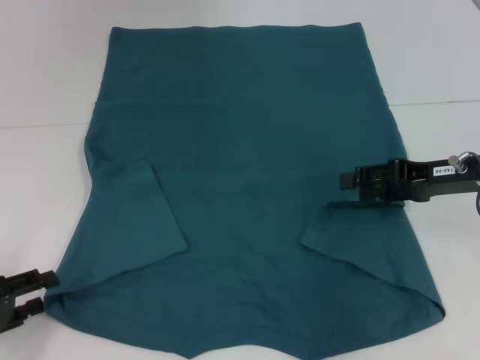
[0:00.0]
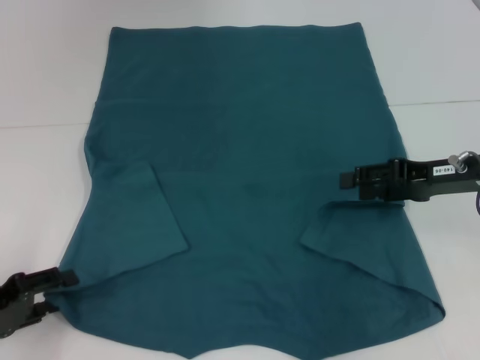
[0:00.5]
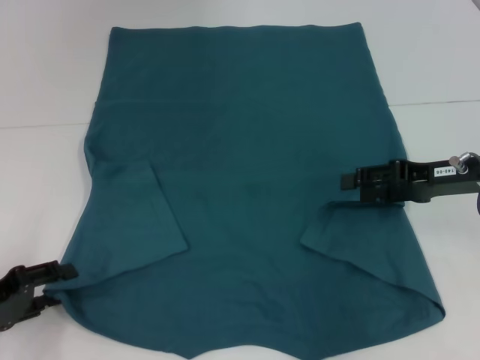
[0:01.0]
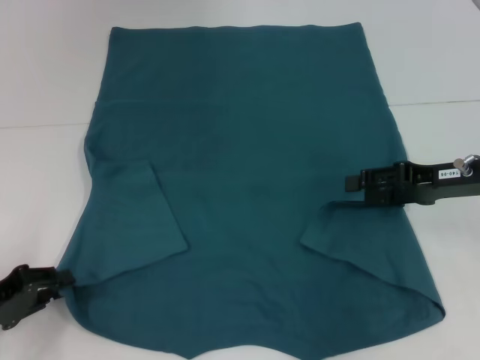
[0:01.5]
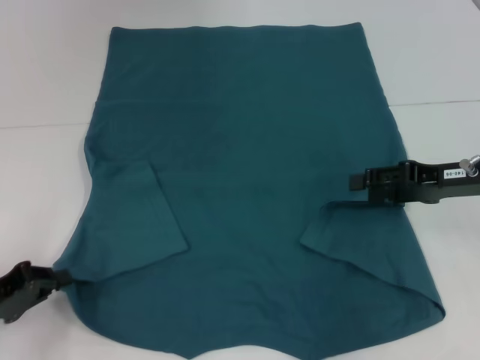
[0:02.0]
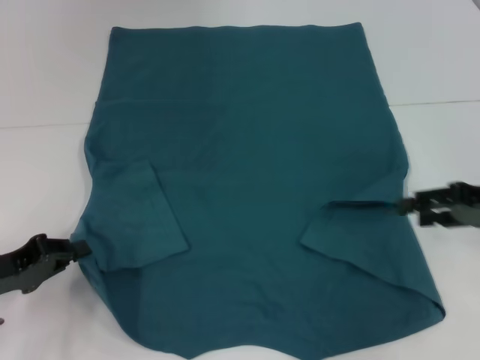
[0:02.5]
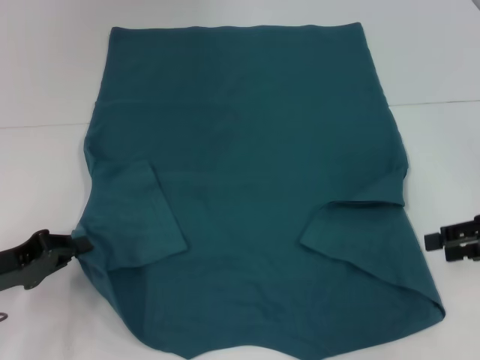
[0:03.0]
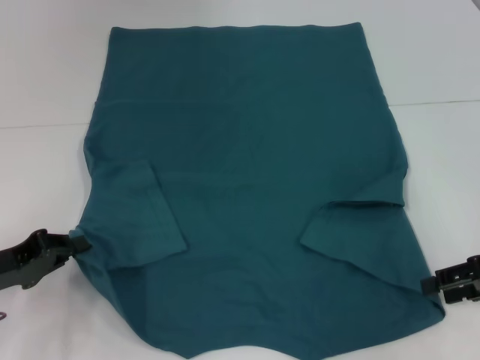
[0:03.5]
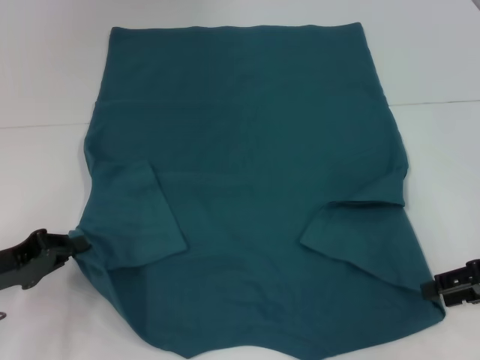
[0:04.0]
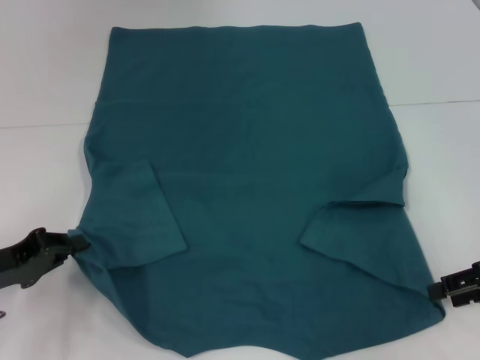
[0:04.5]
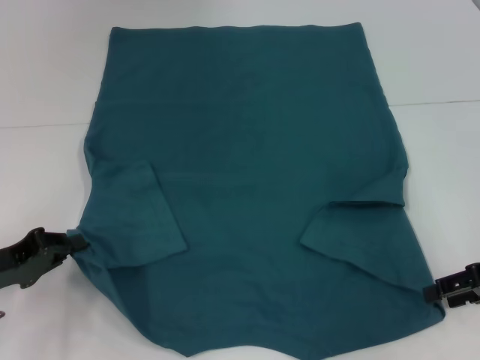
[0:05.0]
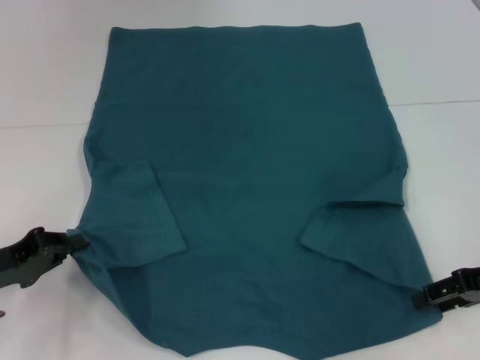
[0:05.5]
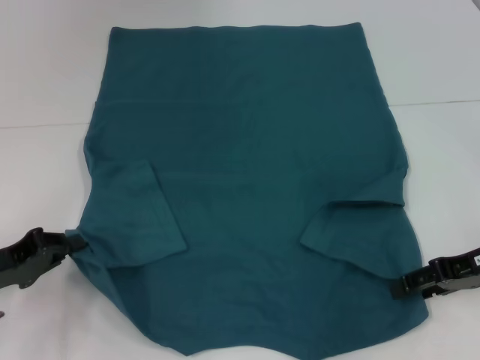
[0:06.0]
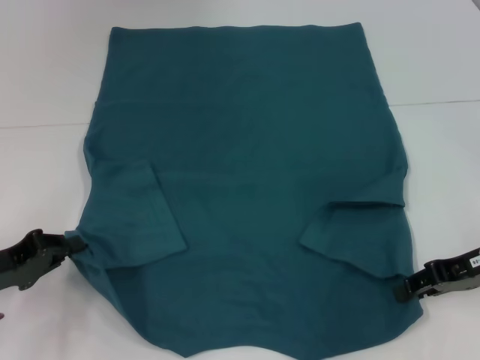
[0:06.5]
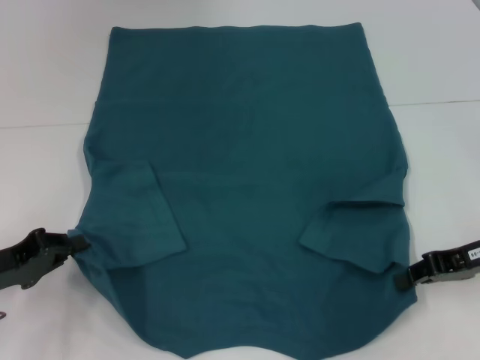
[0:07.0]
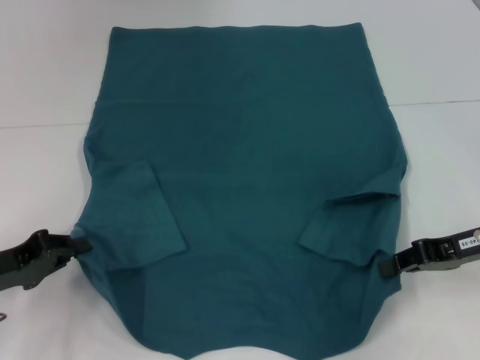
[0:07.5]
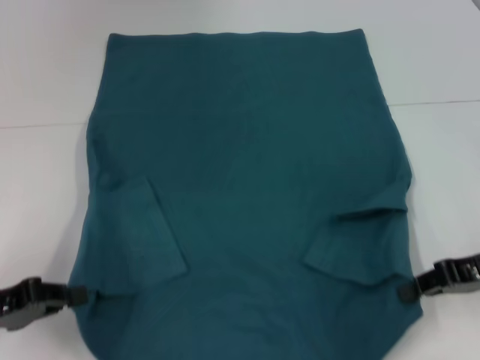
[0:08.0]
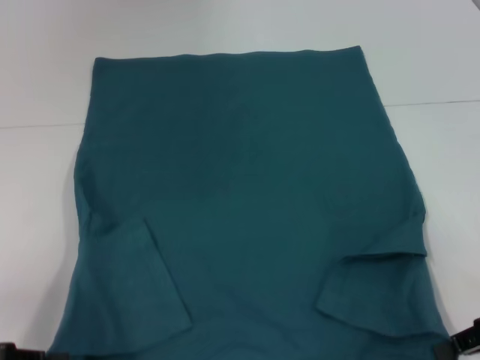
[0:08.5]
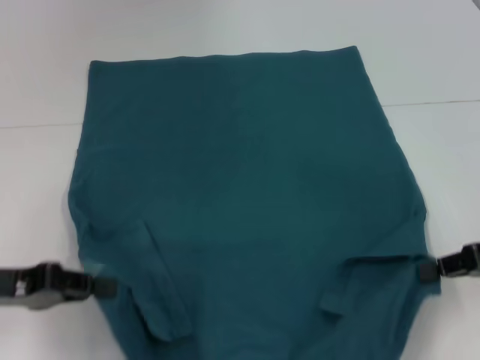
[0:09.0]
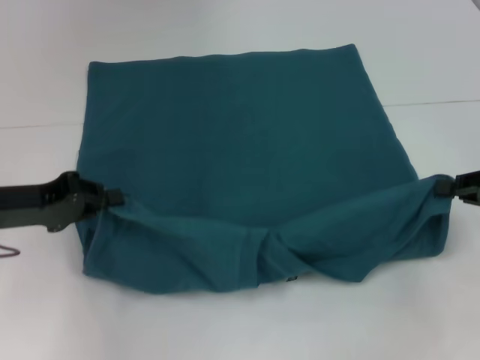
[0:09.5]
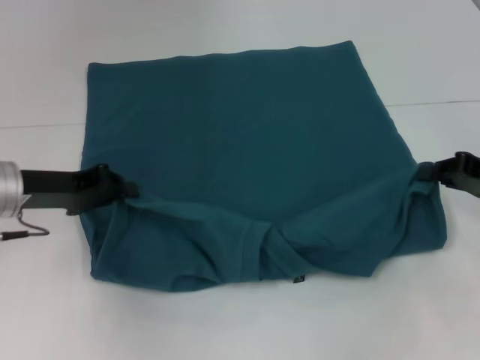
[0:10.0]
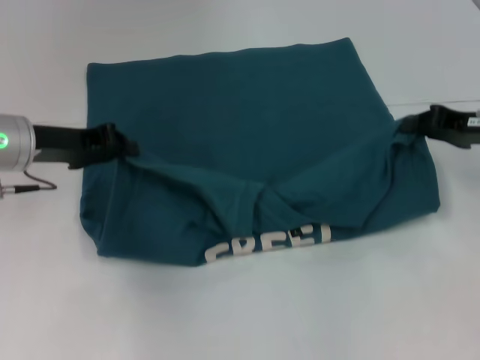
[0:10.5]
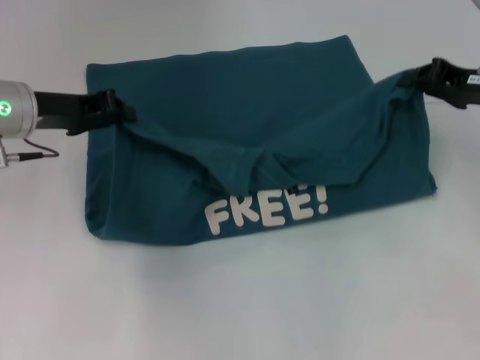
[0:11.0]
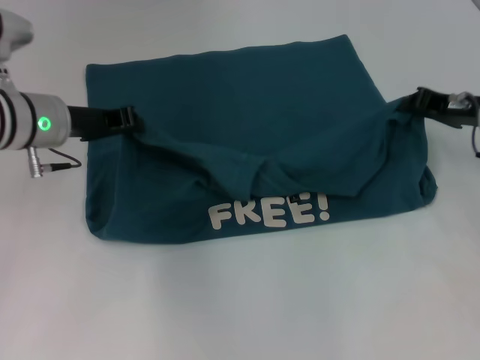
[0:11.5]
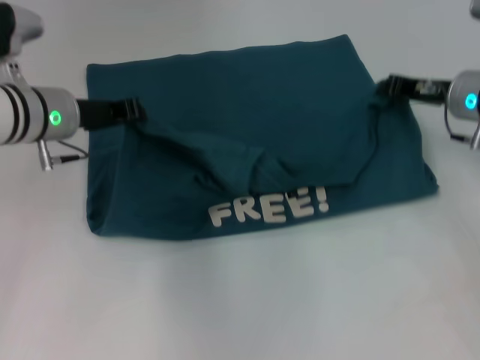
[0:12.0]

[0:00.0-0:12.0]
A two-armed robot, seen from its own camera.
Step, 0:00.0 to 0:02.0: Grab the bottom left corner with your left hand.
Step, 0:02.5 to 0:06.5: Grab the bottom right corner with your right hand.
0:00.0 to 0:02.0: The left gripper closes.
0:02.0 to 0:04.0: The right gripper travels backward and to the right by about 10 cm.
0:04.0 to 0:06.0: The grippers stay close to where they were, moving slightly.
0:06.0 to 0:08.0: The right gripper closes up.
0:08.0 to 0:10.0: The left gripper goes roughly 15 cm forward and to the right.
0:10.0 to 0:12.0: The left gripper goes some 10 cm forward and to the right. The right gripper moves forward and to the left, approximately 15 cm.

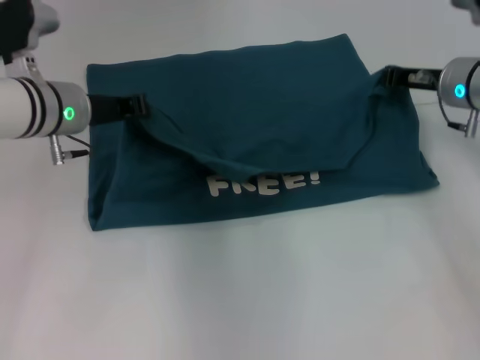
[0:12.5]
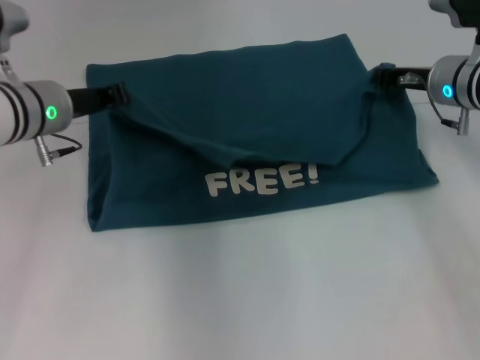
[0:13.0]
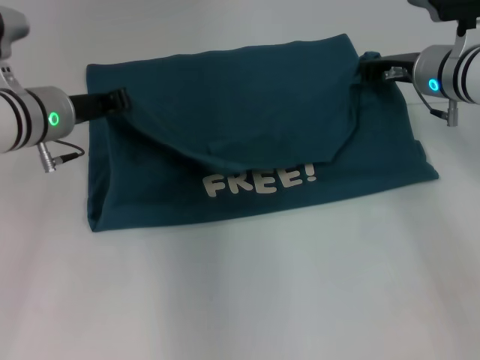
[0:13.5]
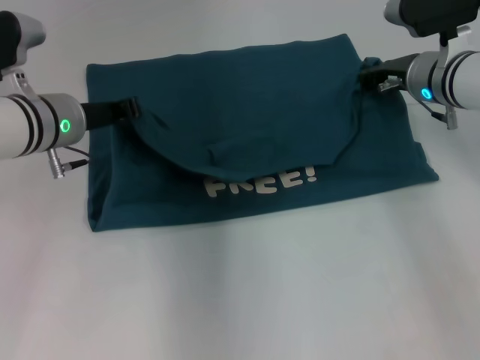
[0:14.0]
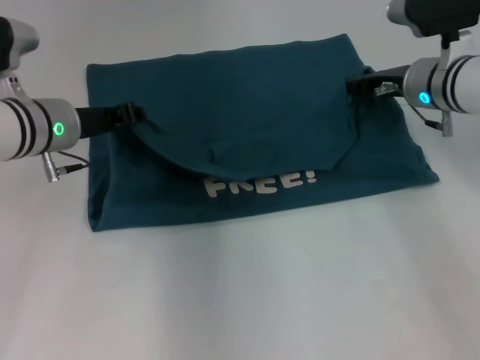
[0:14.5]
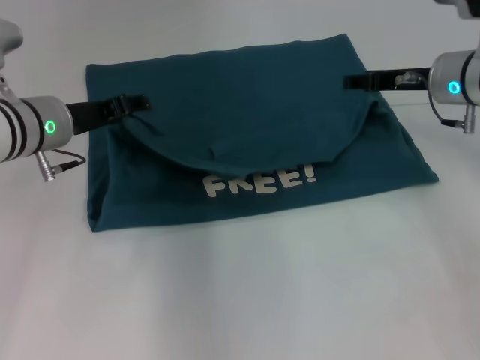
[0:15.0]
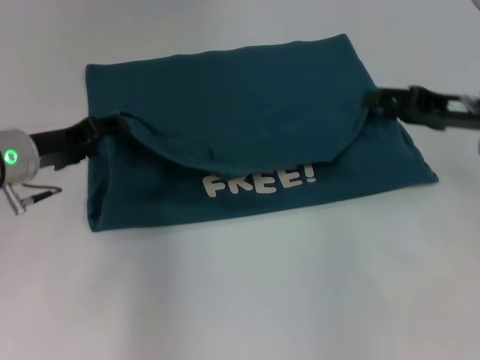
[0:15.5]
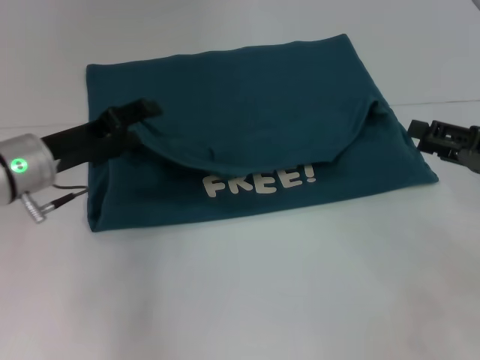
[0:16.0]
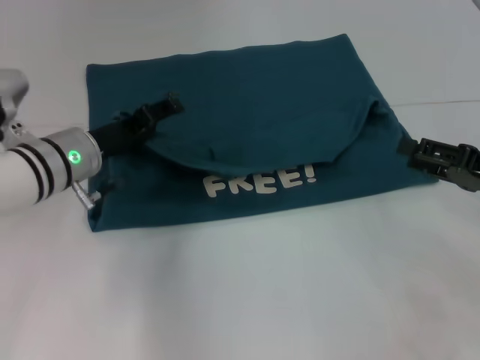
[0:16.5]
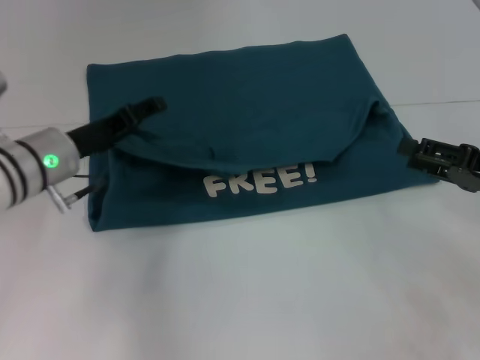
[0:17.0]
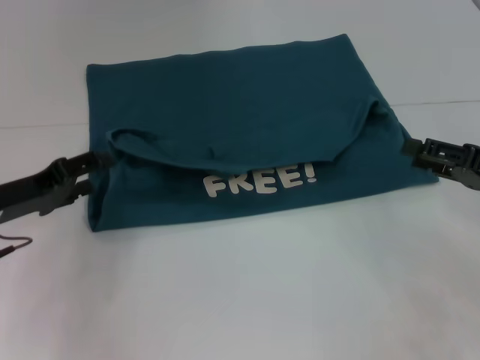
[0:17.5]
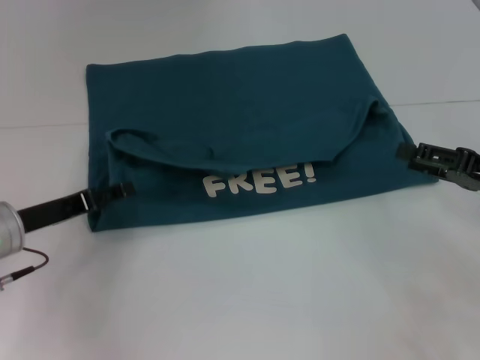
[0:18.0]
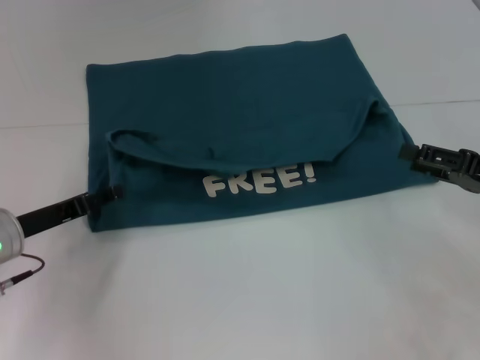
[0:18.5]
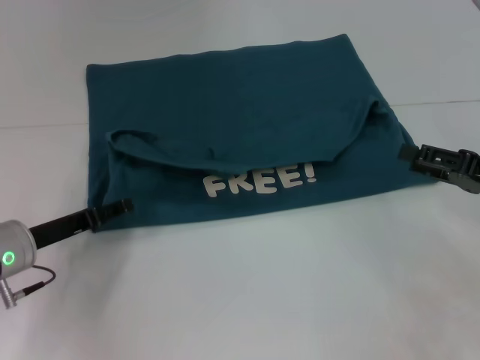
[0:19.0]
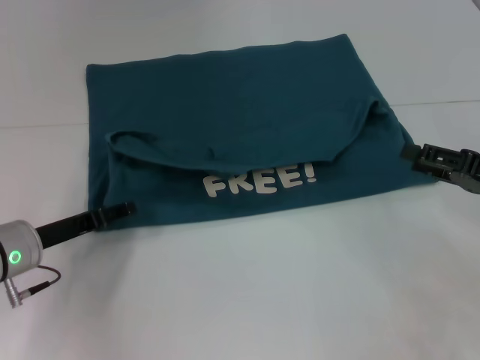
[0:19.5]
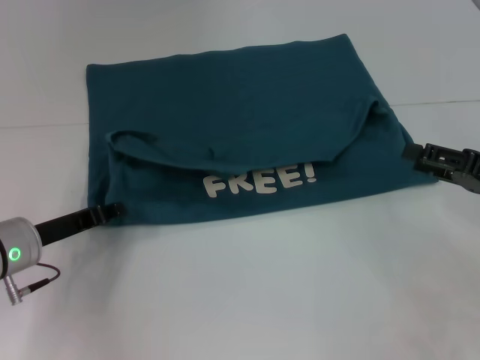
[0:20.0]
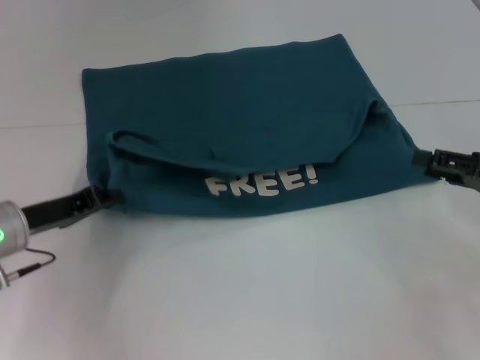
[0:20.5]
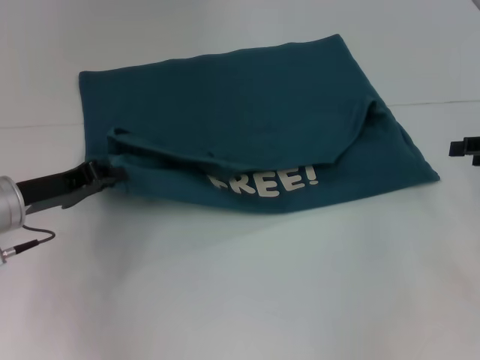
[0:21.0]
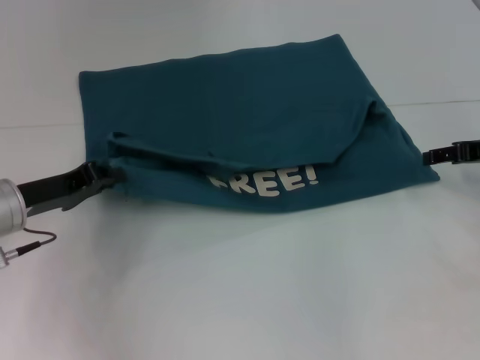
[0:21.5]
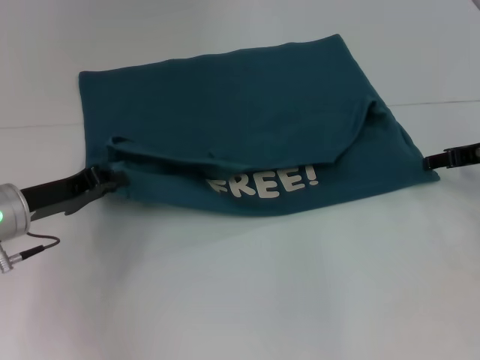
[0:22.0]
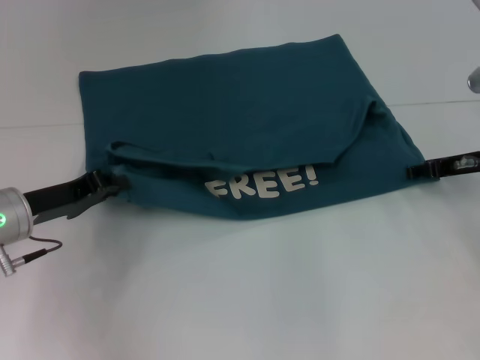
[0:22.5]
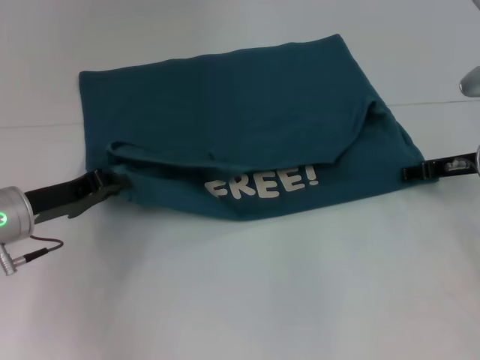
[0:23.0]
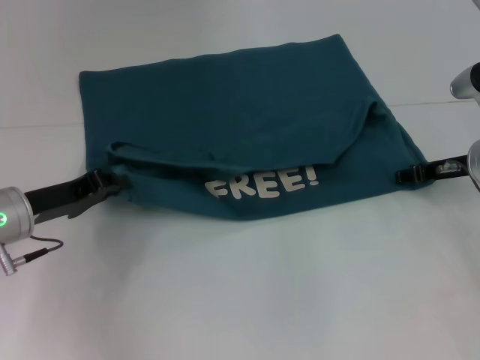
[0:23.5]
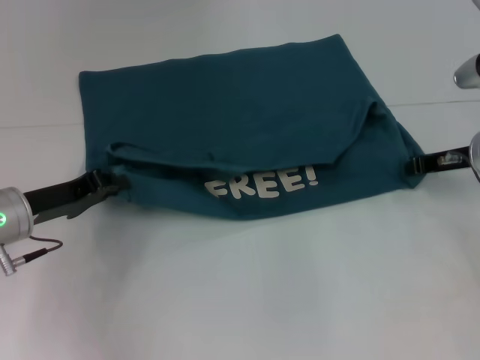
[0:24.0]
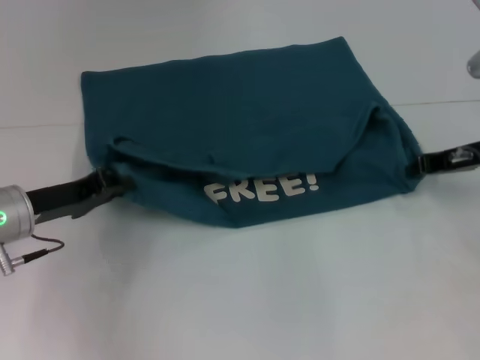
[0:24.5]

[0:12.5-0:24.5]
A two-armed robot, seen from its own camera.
Step, 0:12.5 to 0:15.0: Fold the clothes to the left.
Step, 0:12.5 to 0:15.0: Fold the clothes to the right.
0:14.5 to 0:16.5: The right gripper goes some 20 cm backward and to the right, and opens its fingers; the left gripper opens up.
0:16.5 to 0:18.5: The left gripper travels to the left and backward by roughly 10 cm.
0:18.5 to 0:20.5: The left gripper closes up.
0:20.5 to 0:22.5: The right gripper is displaced forward by roughly 10 cm.
0:22.5 to 0:24.5: The right gripper closes.

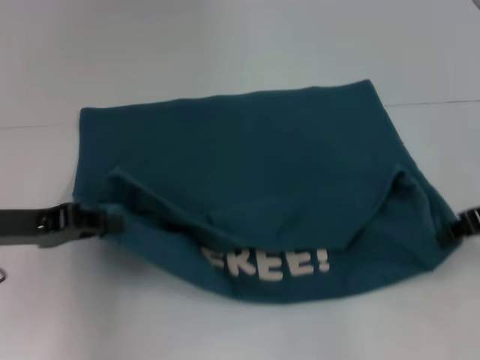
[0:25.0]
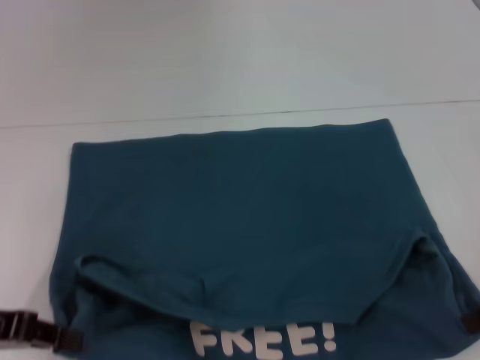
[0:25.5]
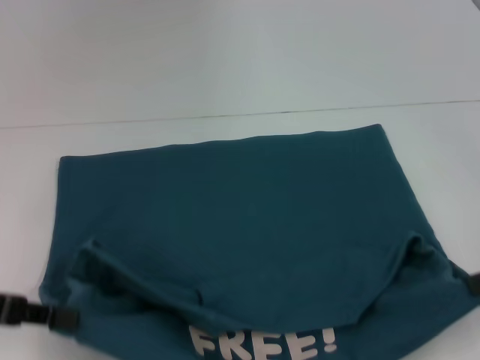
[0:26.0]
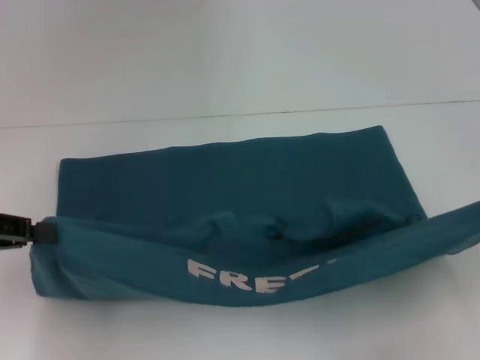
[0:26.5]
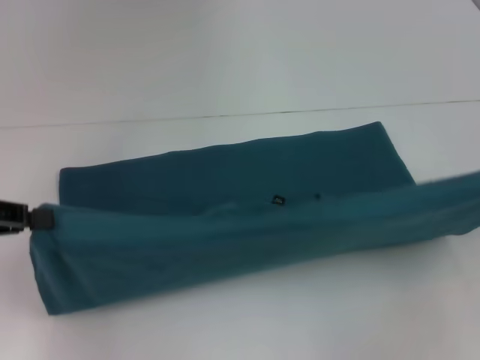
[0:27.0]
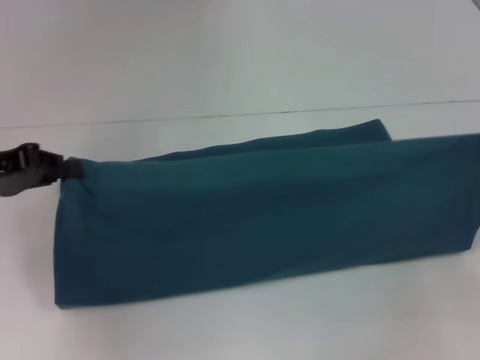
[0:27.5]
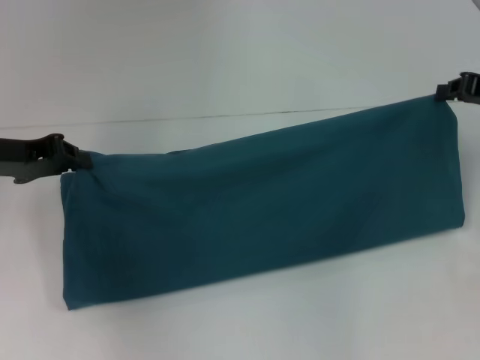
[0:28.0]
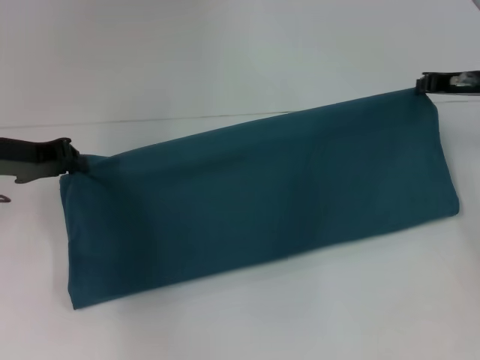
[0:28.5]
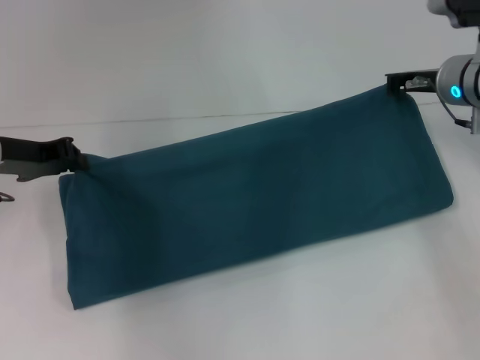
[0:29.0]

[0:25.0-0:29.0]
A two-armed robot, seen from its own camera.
0:25.0 to 0:27.0: The left gripper is displaced to the left by some 5 cm; the right gripper travels to the right and backward by approximately 10 cm.
0:27.0 to 0:29.0: The right gripper heads forward and to the left, covering some 25 cm; the left gripper shifts about 10 cm forward and to the right.
